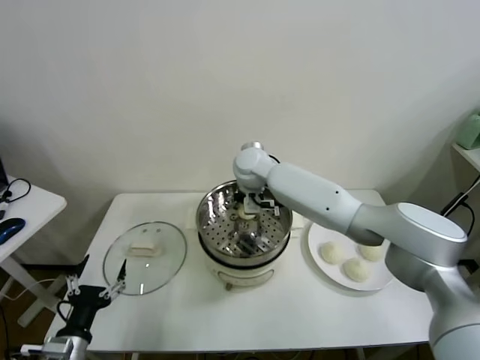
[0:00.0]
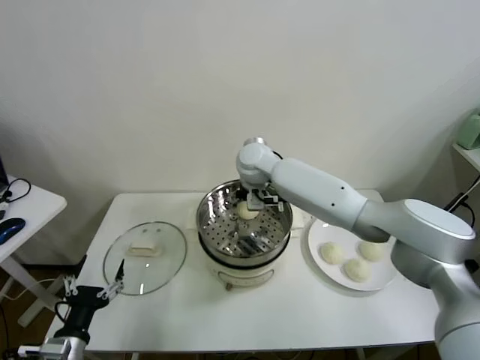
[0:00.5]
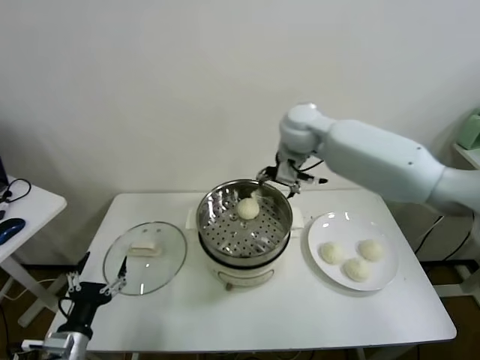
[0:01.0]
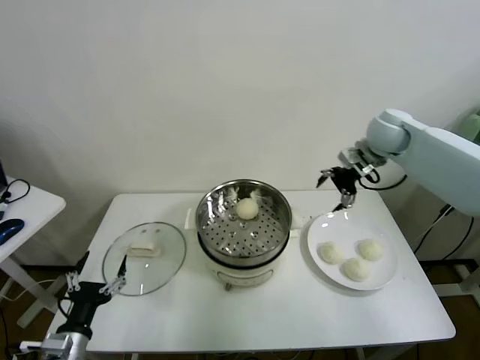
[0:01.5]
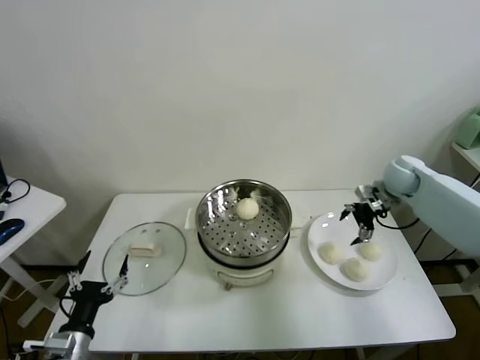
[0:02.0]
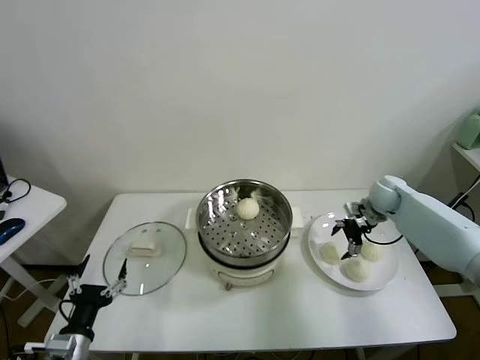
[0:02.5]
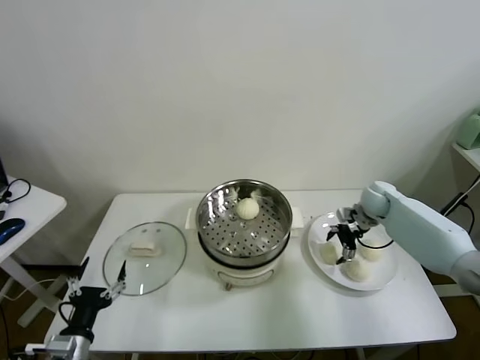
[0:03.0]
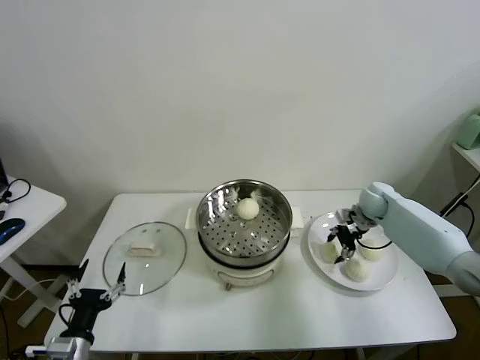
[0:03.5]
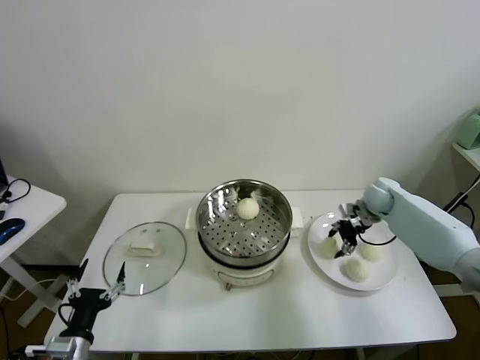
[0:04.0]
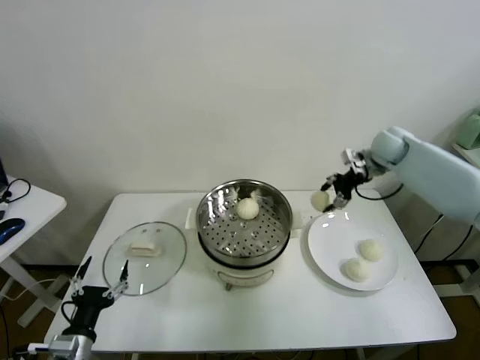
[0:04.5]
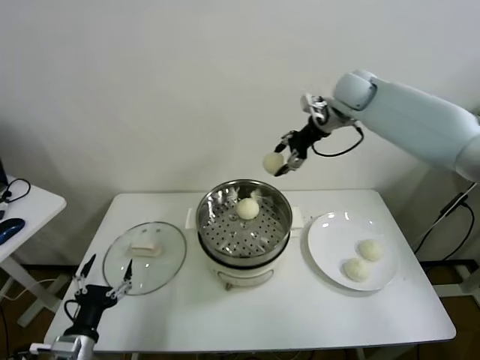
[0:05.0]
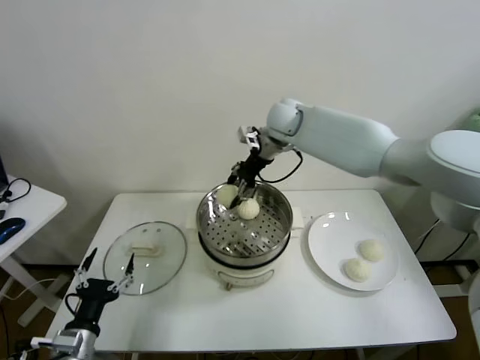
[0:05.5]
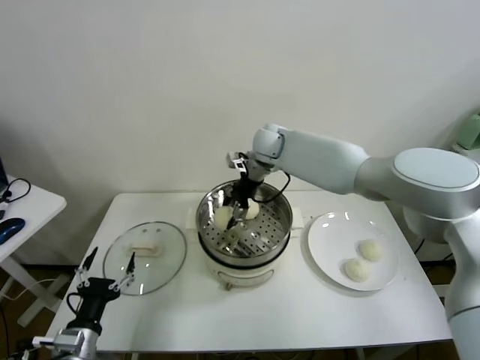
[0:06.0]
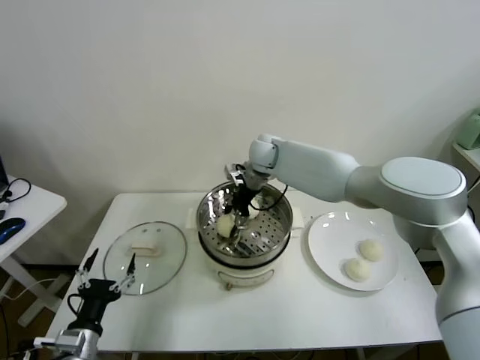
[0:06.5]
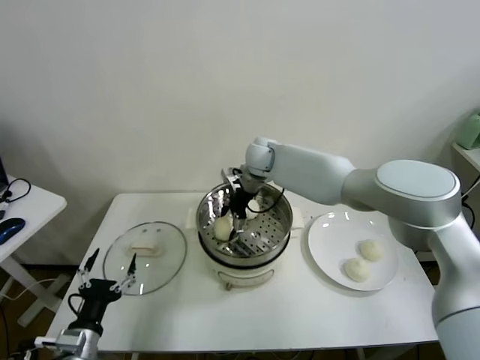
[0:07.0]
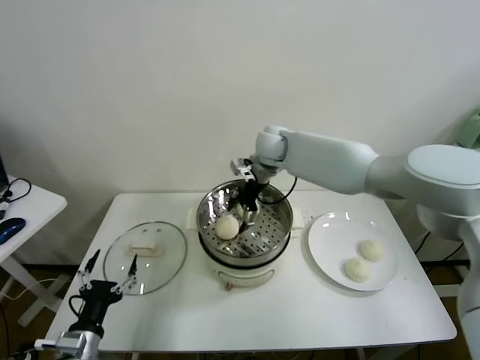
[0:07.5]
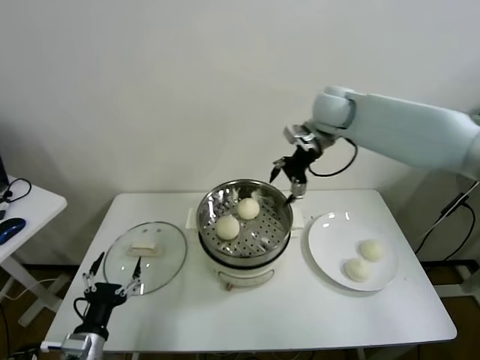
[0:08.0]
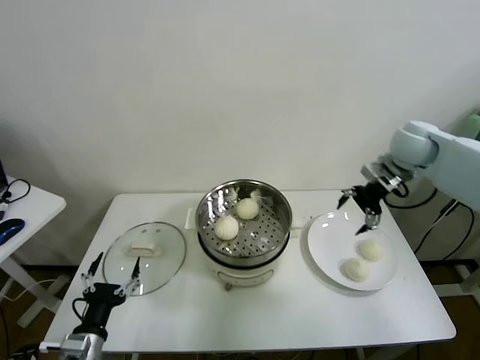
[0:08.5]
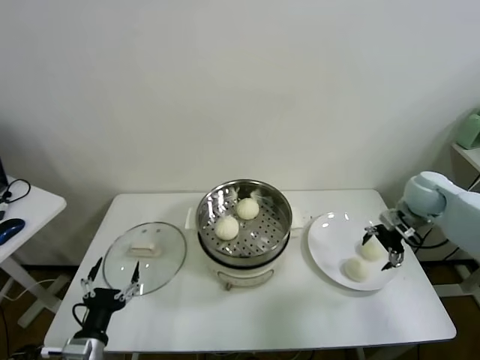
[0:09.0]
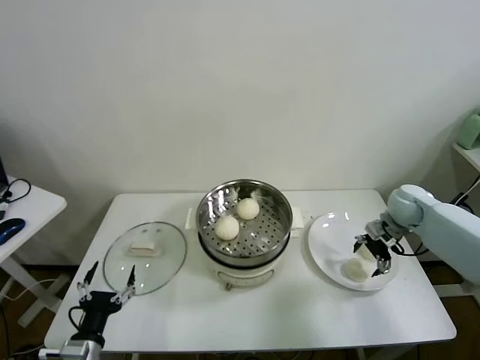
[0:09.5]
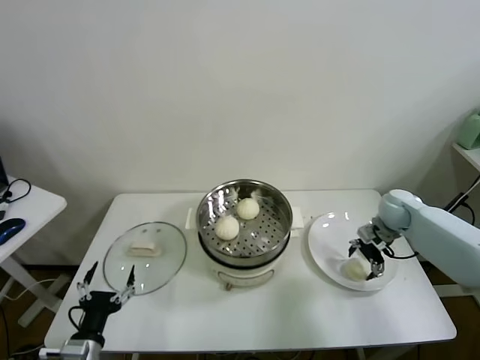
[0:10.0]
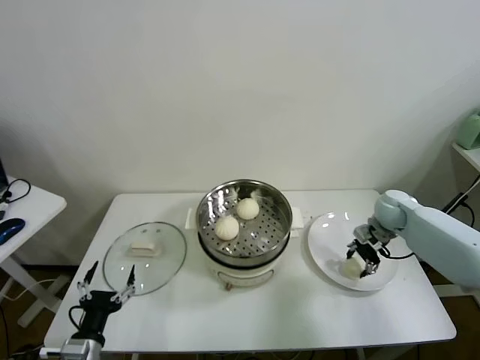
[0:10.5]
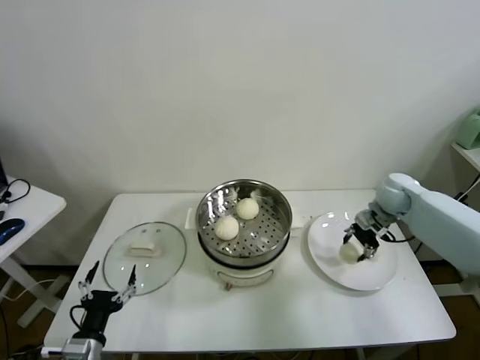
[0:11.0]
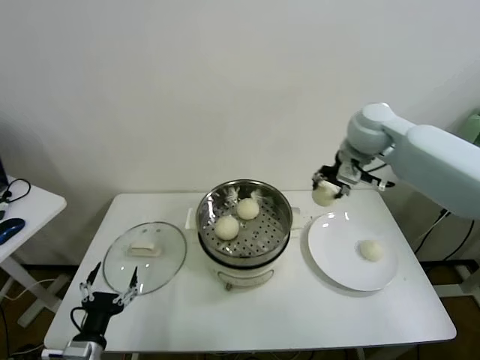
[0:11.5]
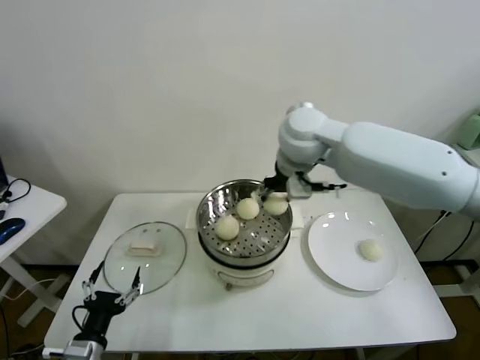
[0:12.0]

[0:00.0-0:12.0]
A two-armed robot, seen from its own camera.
Task of the whole recording: take steamed baozi put them in steamer.
Step, 0:00.5 to 0:03.0: Grasp the baozi in the plate with right gripper.
Step, 0:03.5 to 0:07.0: Place the baozi on the steamer with right gripper.
Step, 0:08.0 to 0:10.0: Grasp the baozi in the plate with right gripper.
0:00.0 to 0:02.0: The right gripper heads to the right, covering some 40 cm, and opens up.
0:02.0 to 0:04.0: The right gripper travels downward by some 5 cm, and closes up.
0:04.0 to 0:06.0: The right gripper heads to the left and upward, covering about 35 cm.
0:06.0 to 0:08.0: The right gripper is displaced to the right and upward by some 20 cm, and opens up.
0:08.0 to 0:10.0: The right gripper moves downward and to the right, roughly 30 cm.
0:10.0 to 0:12.0: The right gripper heads to the left and upward, covering about 40 cm, and closes up.

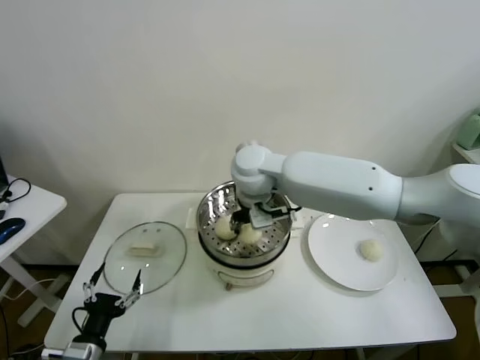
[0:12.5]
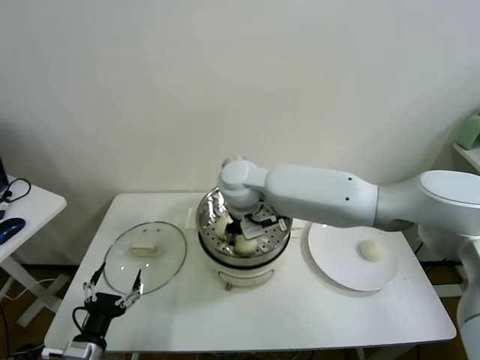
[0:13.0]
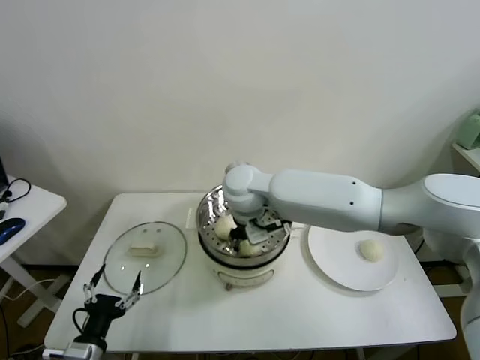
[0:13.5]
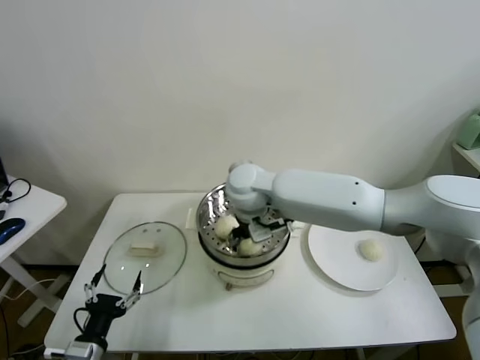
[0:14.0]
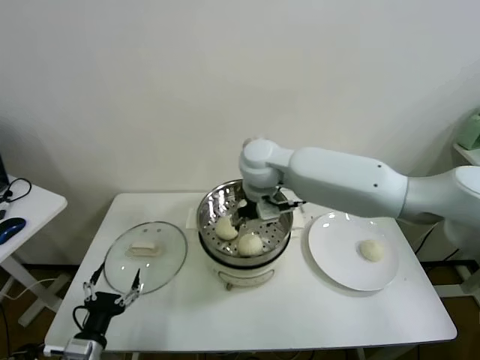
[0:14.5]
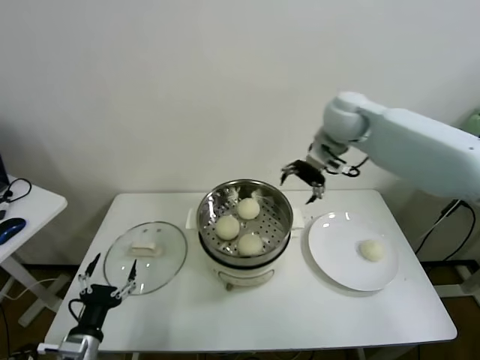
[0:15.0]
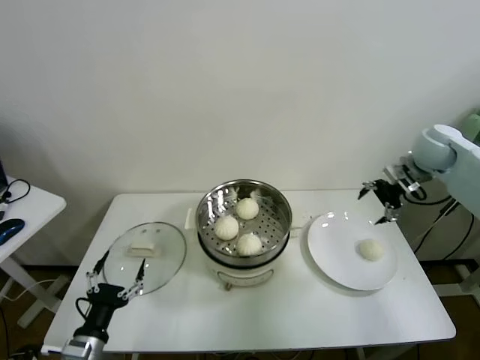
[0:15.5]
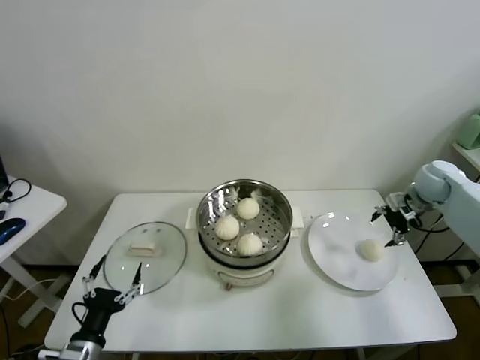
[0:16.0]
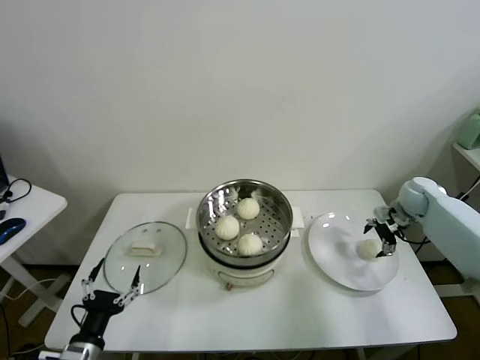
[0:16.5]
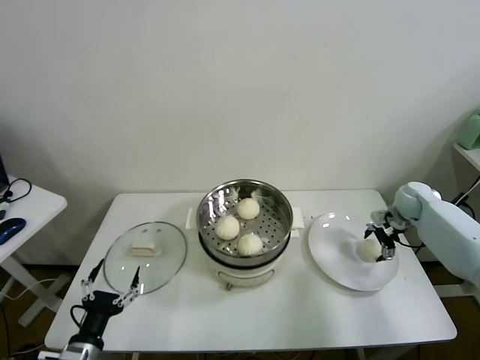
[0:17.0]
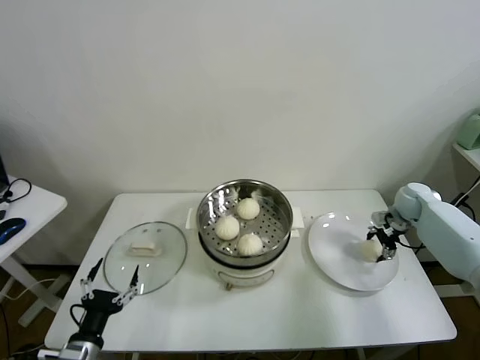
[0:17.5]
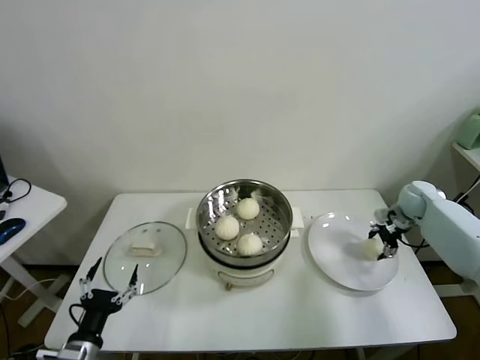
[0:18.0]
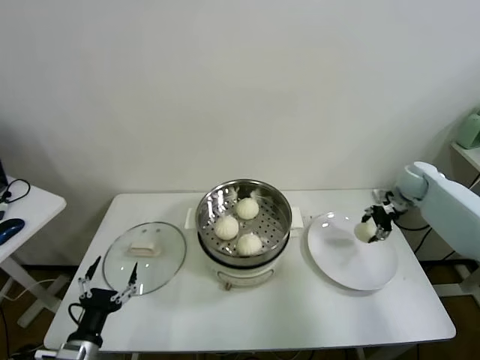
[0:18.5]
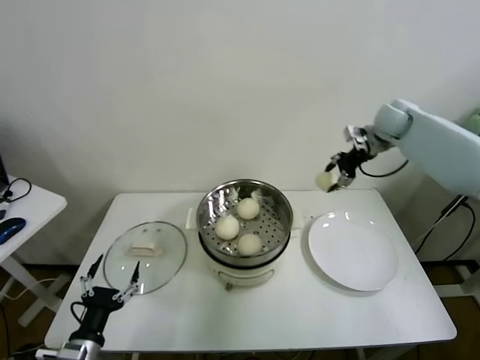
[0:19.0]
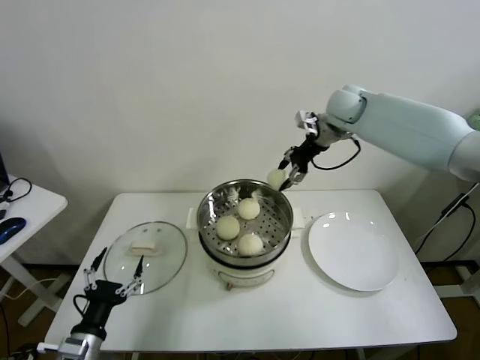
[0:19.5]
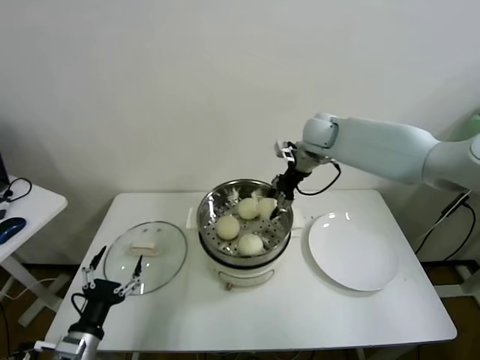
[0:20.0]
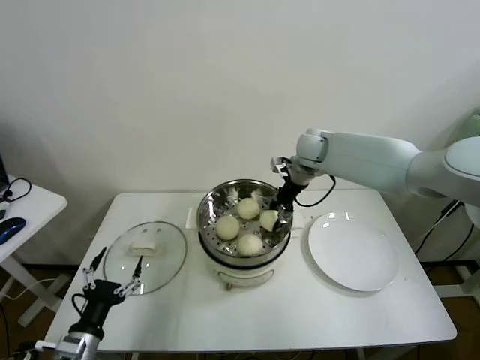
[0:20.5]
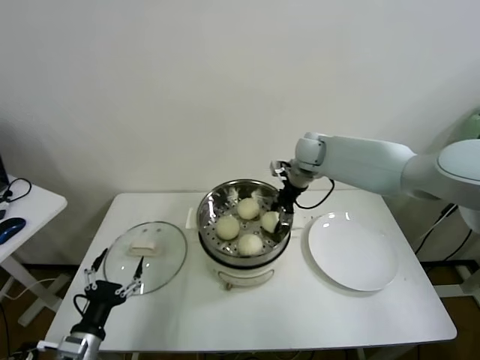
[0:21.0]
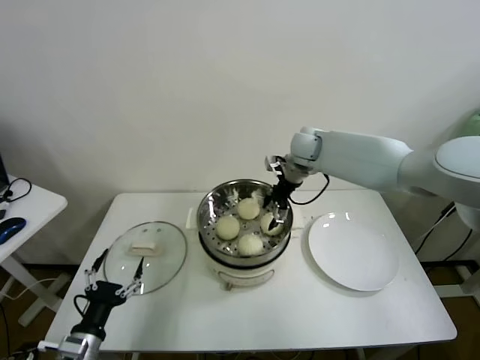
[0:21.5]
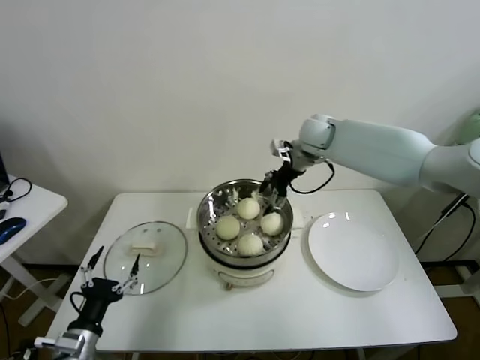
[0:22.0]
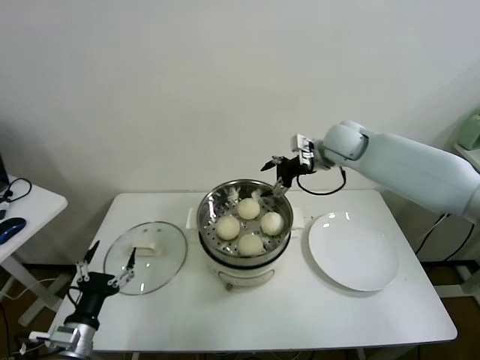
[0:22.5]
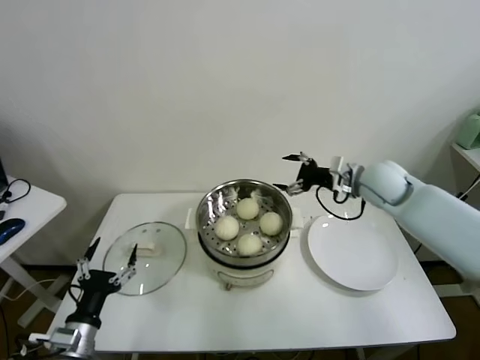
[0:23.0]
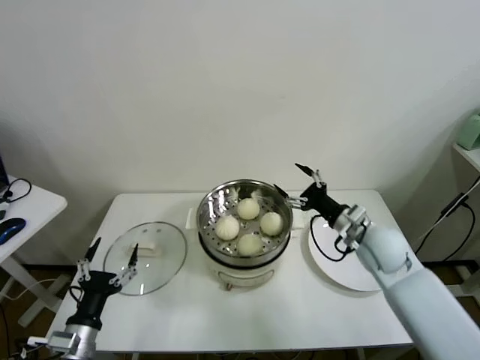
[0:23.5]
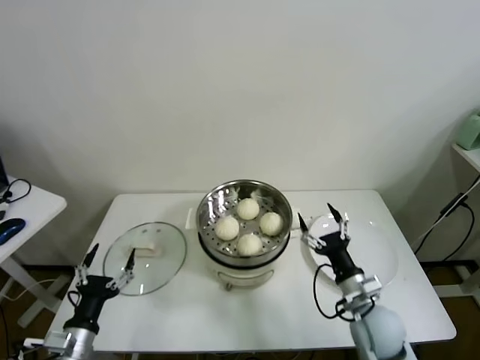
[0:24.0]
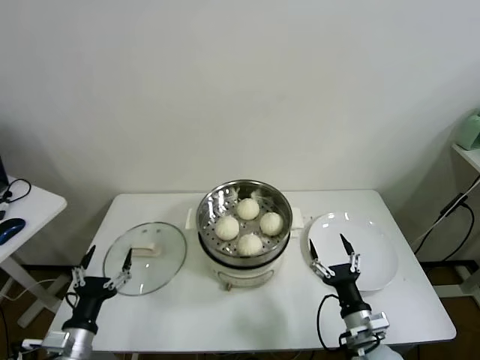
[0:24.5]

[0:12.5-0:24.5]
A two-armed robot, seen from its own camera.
Task of the whole recording: take steamed baozi put them in steamer.
Step, 0:14.0 to 0:17.0: Grasp the baozi in the plate with right gripper.
Step, 0:17.5 to 0:21.0: Place the baozi on the steamer with right gripper.
0:12.5 to 0:14.5: The right gripper opens its fingers.
0:14.5 to 0:16.5: The right gripper travels to the right by roughly 40 cm.
0:16.5 to 0:18.5: The right gripper closes.
0:18.5 to 0:20.5: The right gripper goes about 30 cm to the left.
0:20.5 to 0:22.5: The right gripper moves roughly 5 cm, and opens its fingers.
0:22.5 to 0:24.5: The right gripper moves backward and downward, roughly 50 cm.

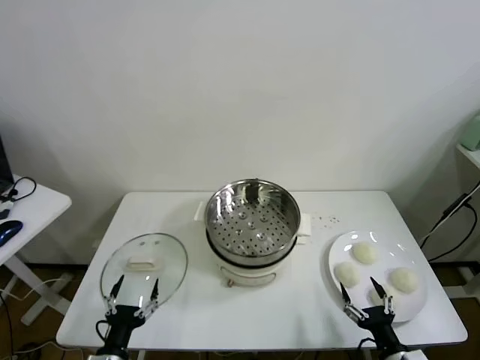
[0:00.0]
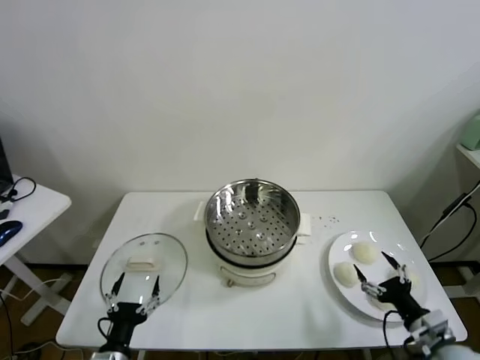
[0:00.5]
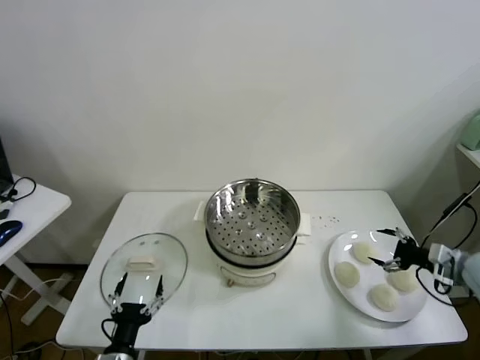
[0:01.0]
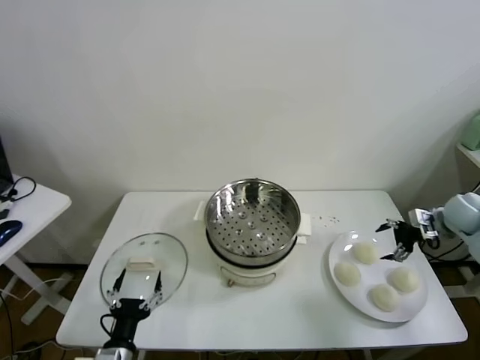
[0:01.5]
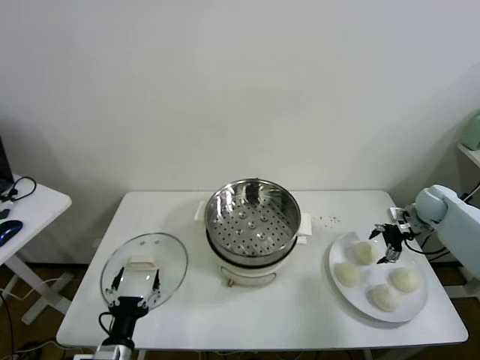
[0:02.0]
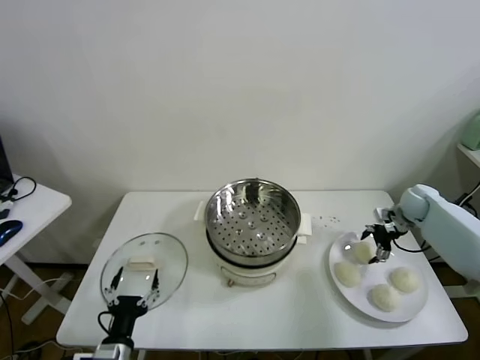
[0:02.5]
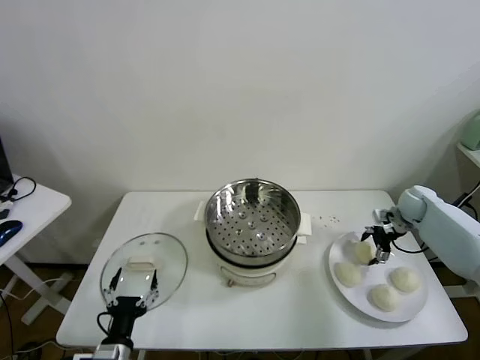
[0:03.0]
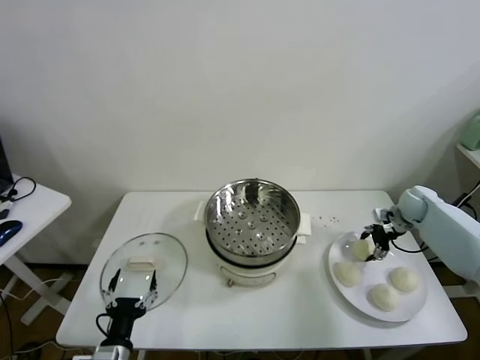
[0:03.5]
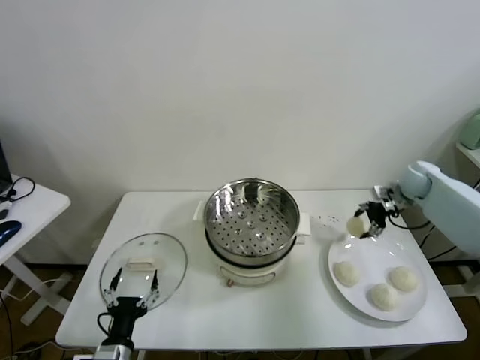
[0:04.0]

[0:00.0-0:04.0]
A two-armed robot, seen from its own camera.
Task of the whole recording: take steamed baozi put them in steamer.
Step, 0:00.0 to 0:03.0: Grasp the baozi in the plate with right gripper.
0:02.0 to 0:04.0: The right gripper goes roughly 10 cm upward and to the left.
